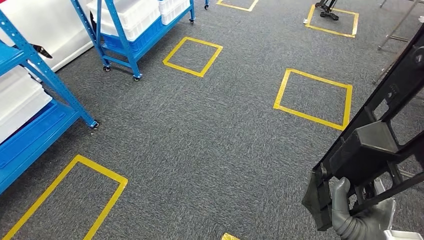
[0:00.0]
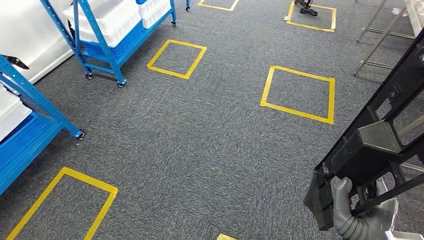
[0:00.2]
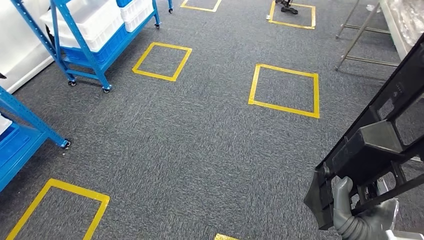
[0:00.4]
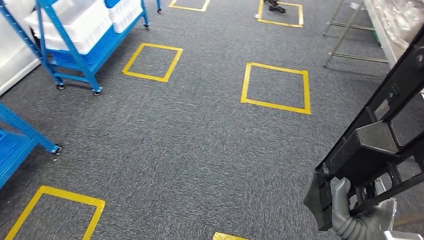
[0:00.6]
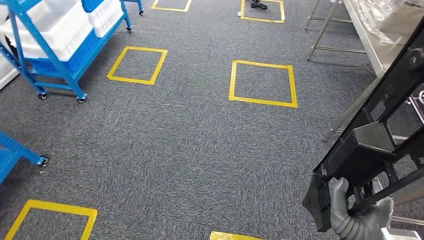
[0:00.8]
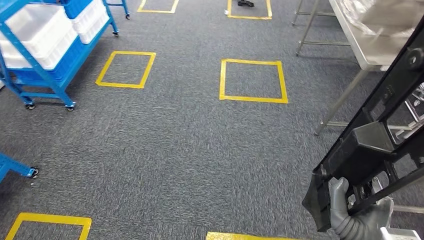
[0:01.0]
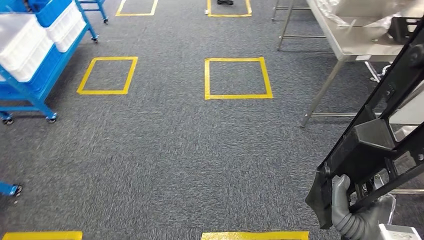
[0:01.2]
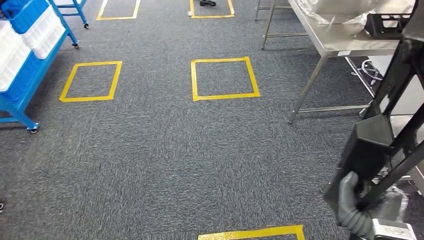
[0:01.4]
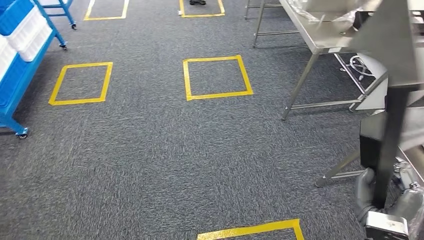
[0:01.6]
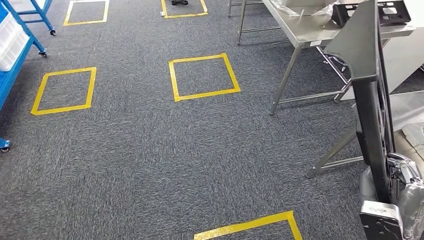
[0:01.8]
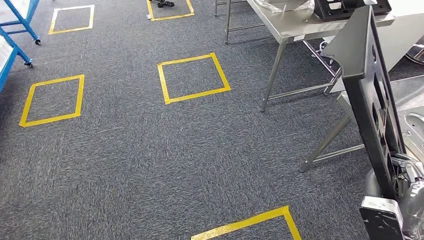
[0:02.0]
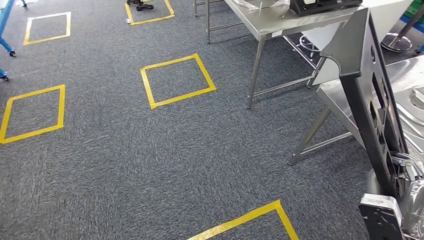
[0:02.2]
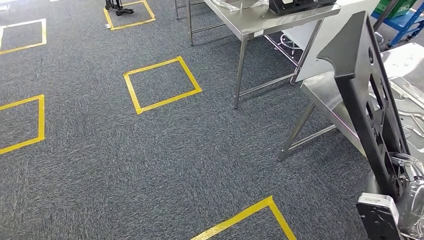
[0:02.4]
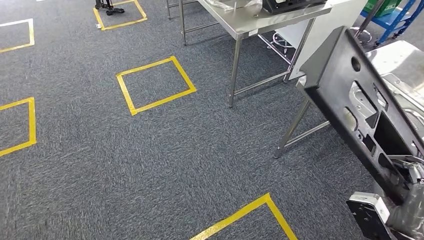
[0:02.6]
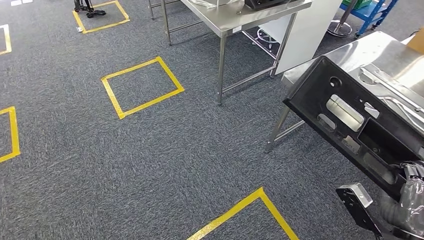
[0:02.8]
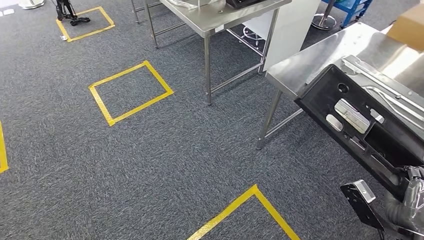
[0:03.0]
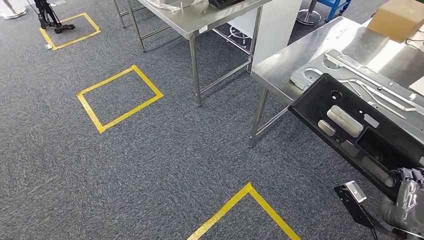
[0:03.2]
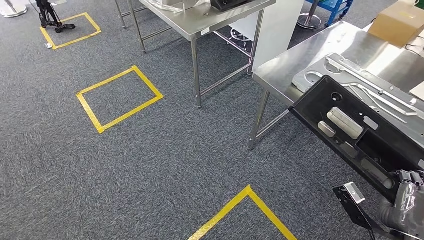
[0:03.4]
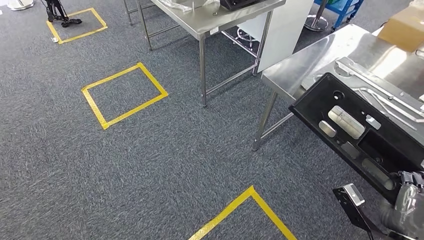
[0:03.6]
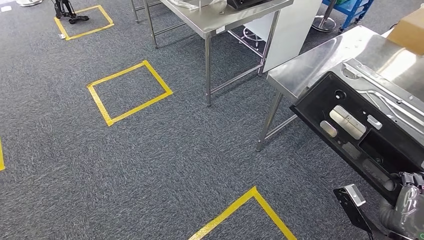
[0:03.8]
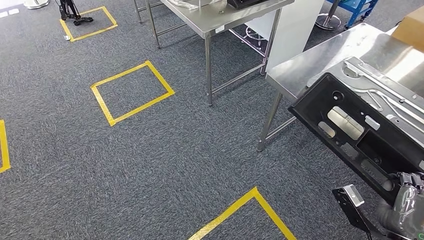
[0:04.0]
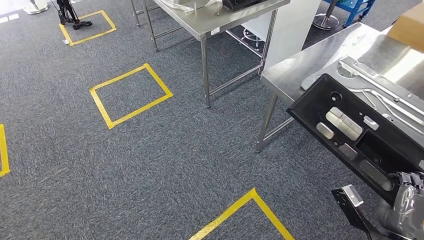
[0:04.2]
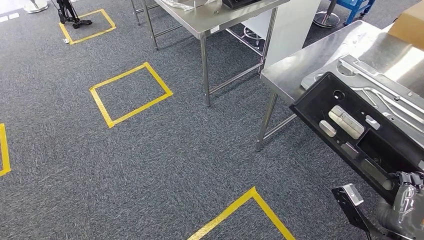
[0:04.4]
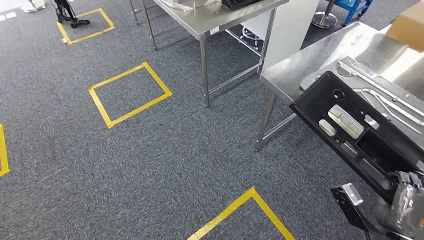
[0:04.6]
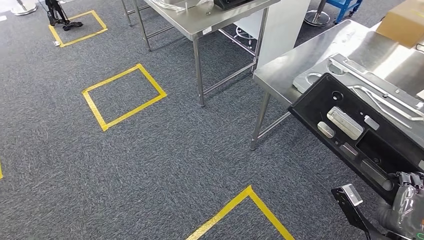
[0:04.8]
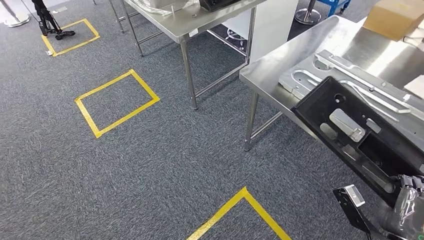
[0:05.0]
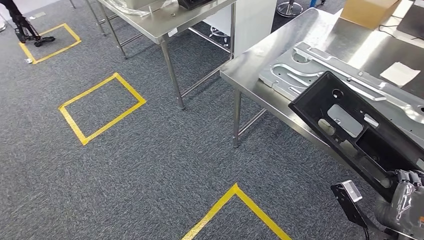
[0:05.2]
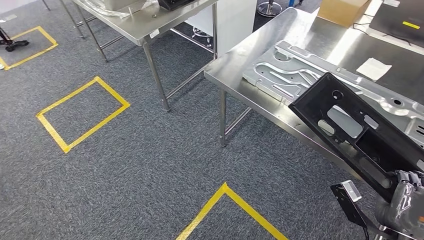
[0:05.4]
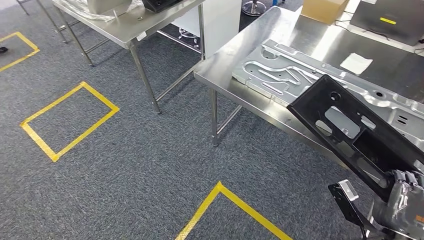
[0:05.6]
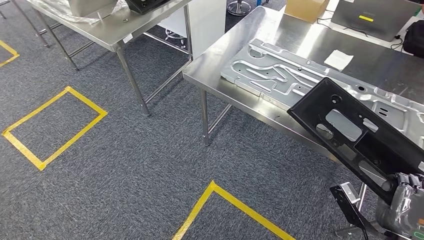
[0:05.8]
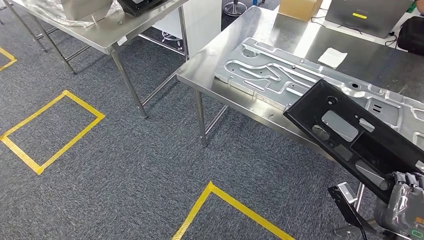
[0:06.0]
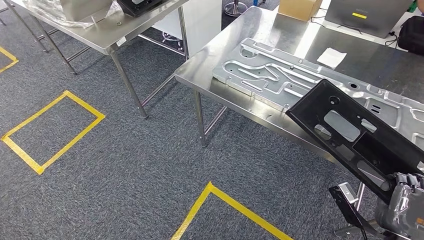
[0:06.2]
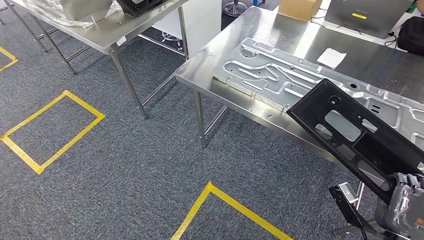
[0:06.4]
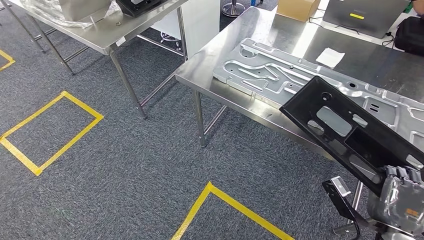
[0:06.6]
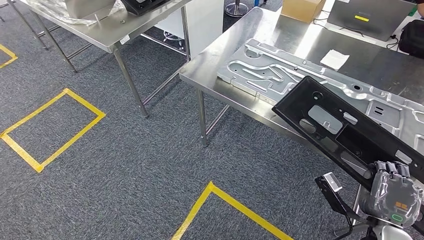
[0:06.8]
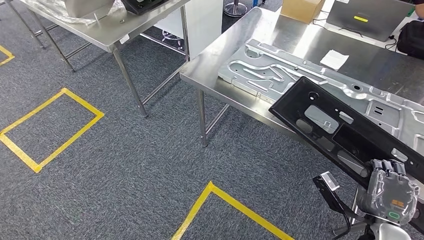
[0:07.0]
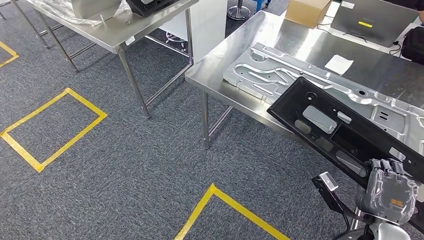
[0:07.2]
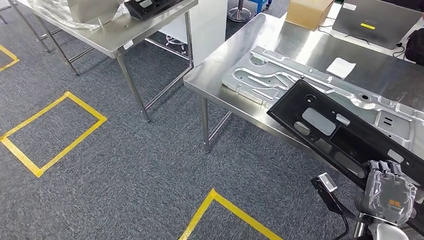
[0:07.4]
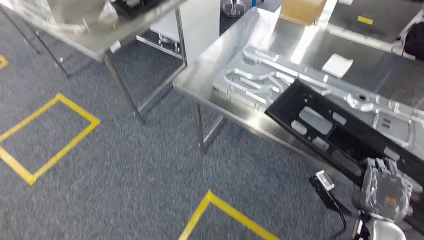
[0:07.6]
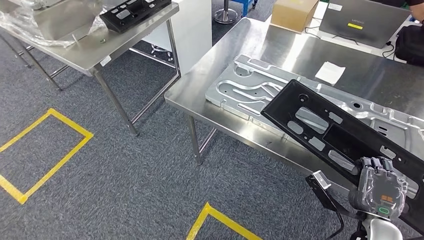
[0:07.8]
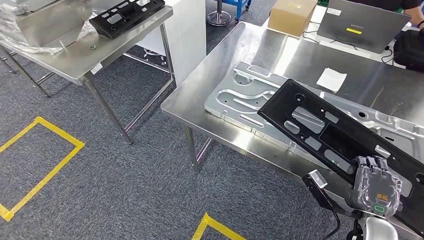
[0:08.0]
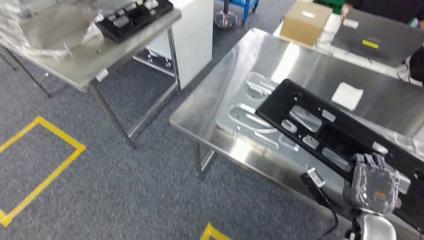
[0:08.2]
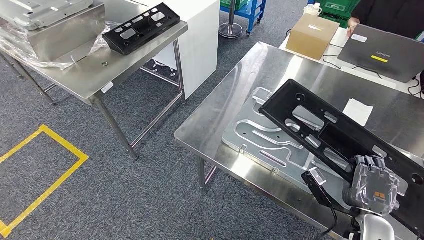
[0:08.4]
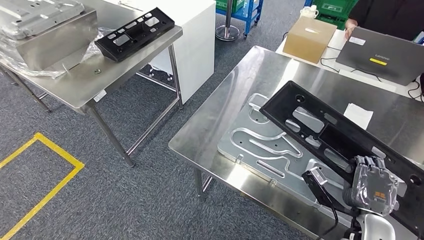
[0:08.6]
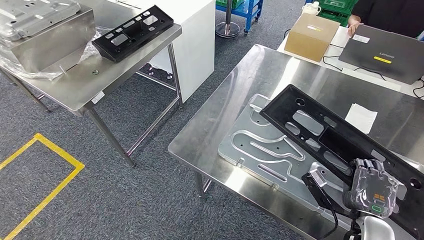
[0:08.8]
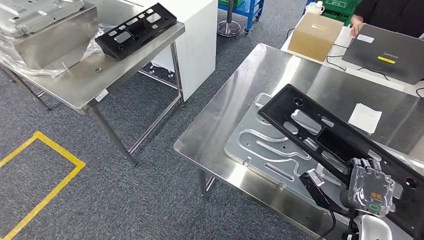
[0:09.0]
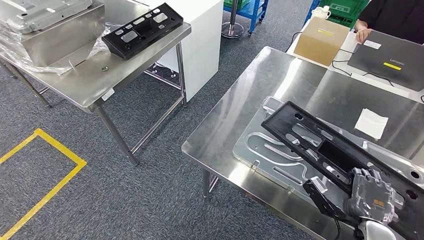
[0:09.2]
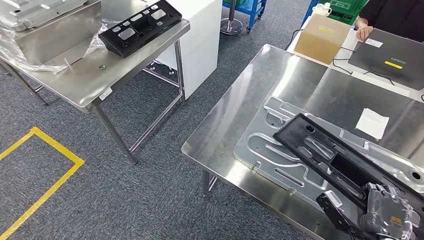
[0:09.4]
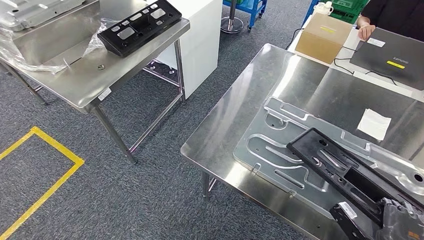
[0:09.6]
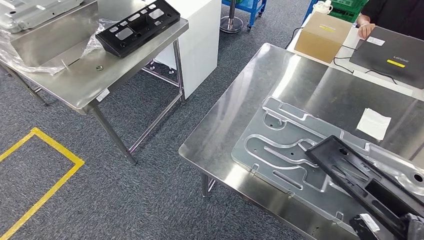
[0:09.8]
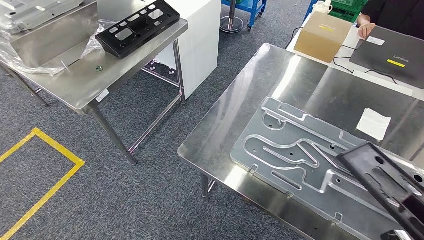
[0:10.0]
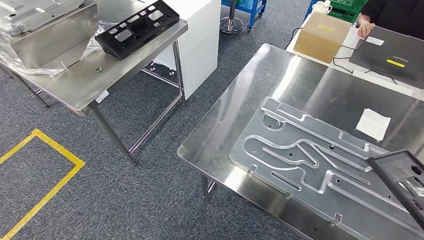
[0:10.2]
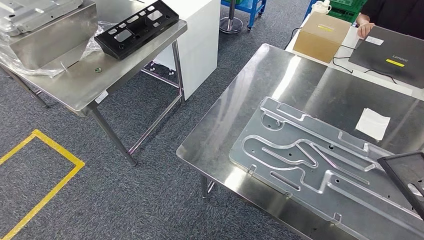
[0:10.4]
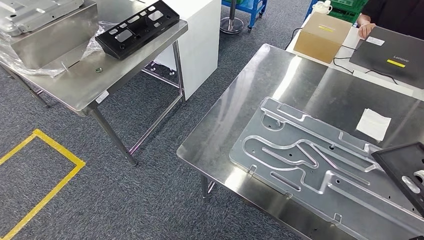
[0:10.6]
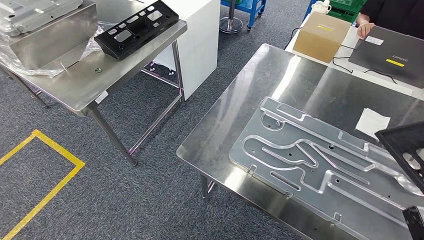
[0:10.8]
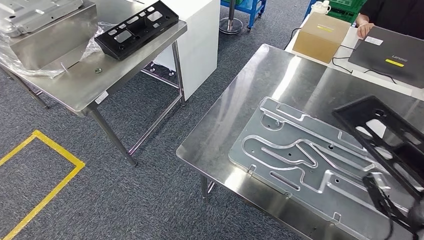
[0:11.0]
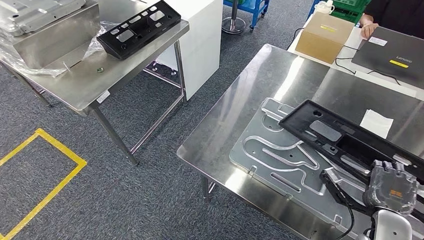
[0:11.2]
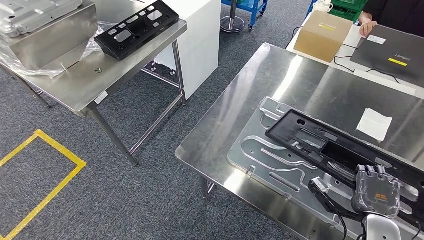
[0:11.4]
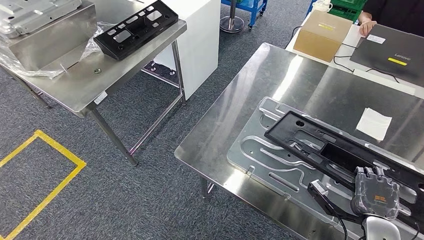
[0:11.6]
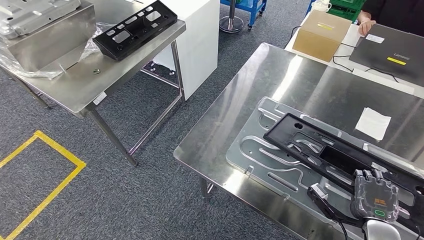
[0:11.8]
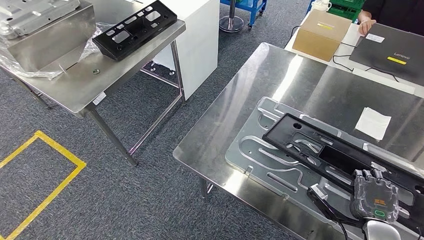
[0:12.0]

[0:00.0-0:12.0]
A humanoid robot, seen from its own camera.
Step, 0:00.0 to 0:08.0: Move the large parts to the workbench.
0:03.0 to 0:04.4: The hands make only small movements.

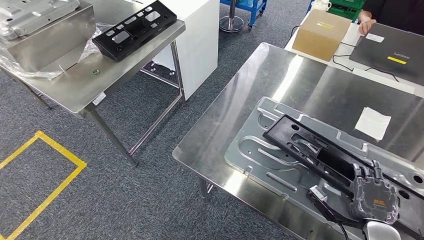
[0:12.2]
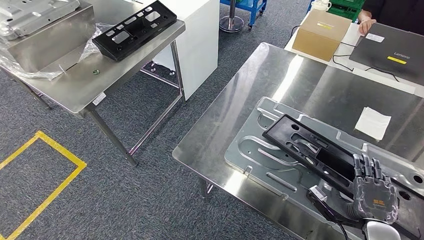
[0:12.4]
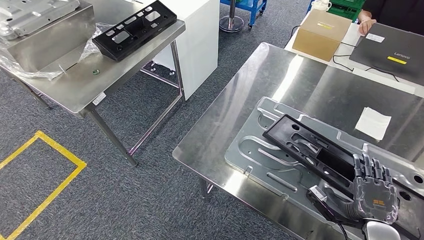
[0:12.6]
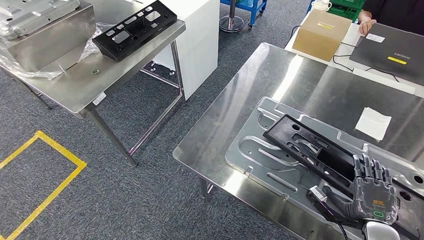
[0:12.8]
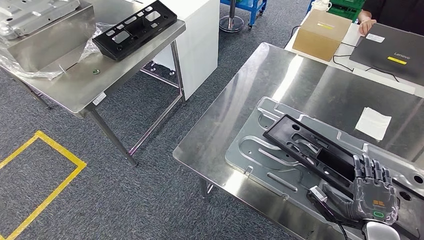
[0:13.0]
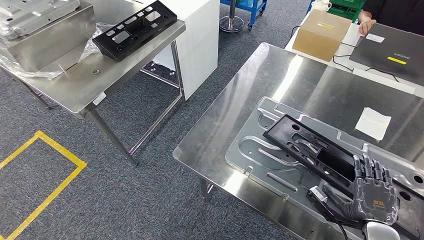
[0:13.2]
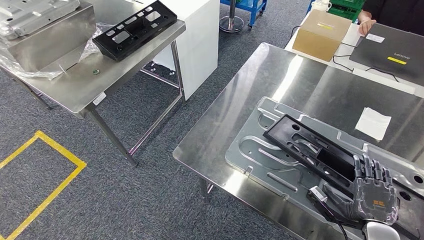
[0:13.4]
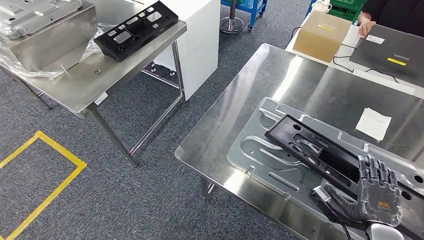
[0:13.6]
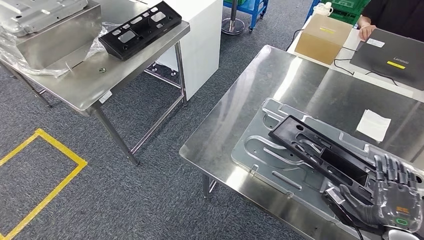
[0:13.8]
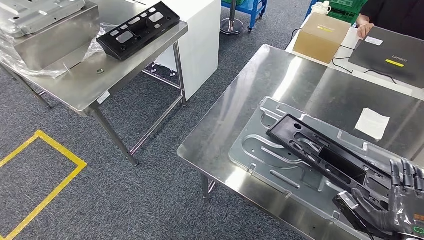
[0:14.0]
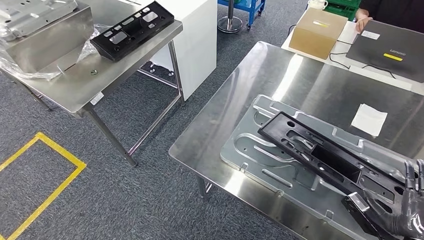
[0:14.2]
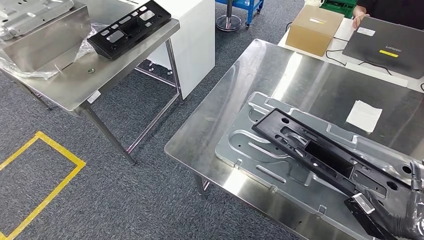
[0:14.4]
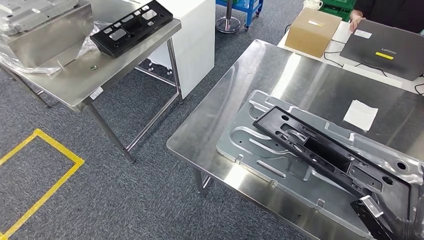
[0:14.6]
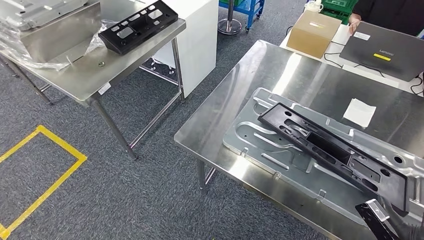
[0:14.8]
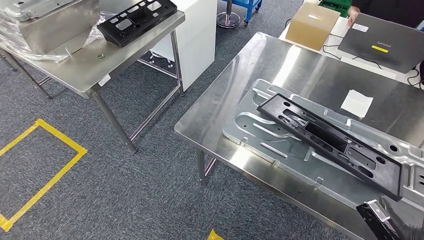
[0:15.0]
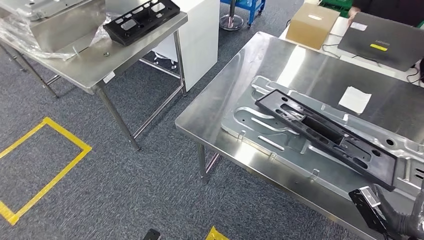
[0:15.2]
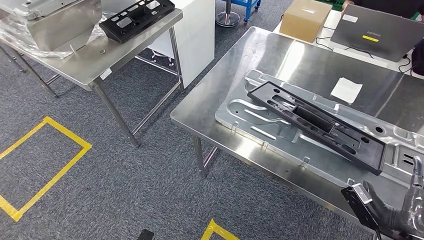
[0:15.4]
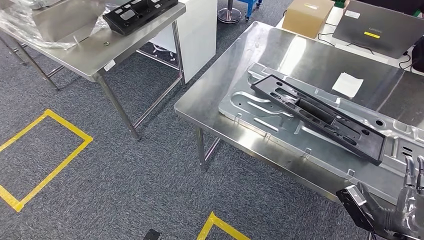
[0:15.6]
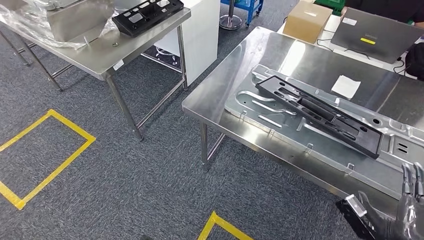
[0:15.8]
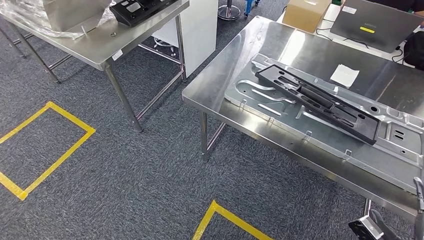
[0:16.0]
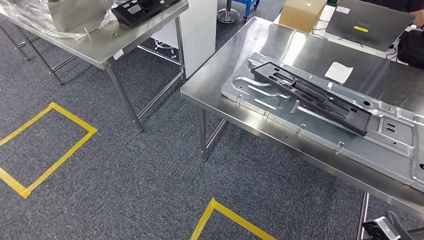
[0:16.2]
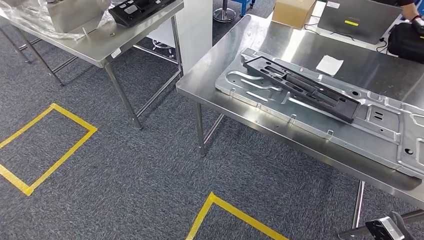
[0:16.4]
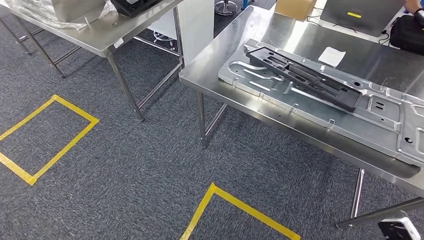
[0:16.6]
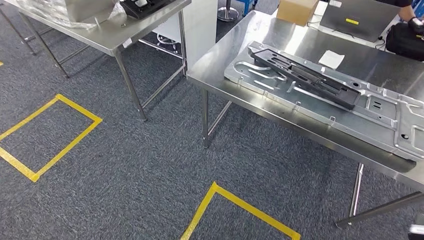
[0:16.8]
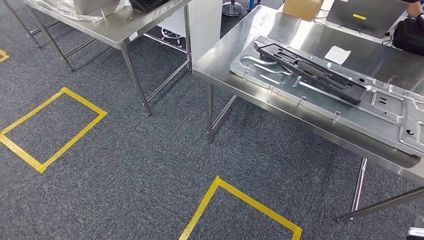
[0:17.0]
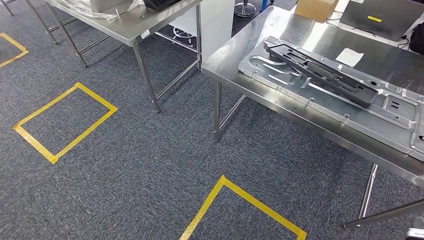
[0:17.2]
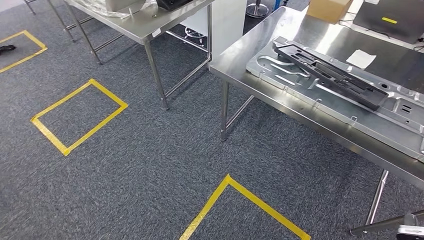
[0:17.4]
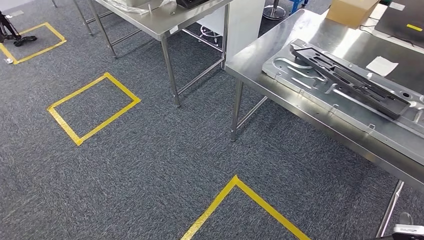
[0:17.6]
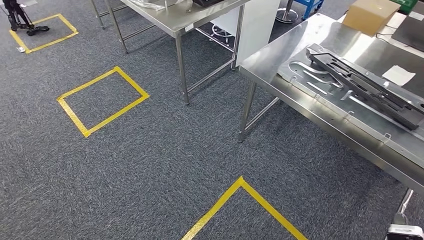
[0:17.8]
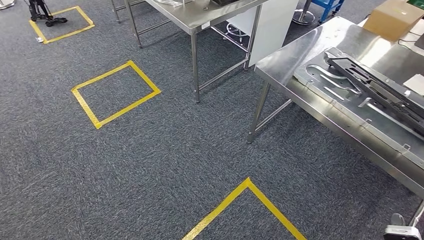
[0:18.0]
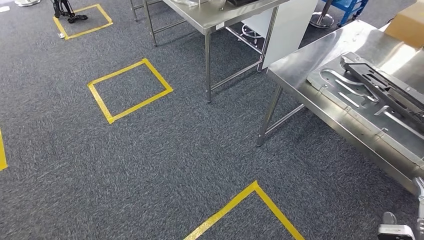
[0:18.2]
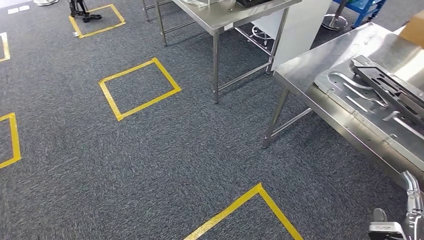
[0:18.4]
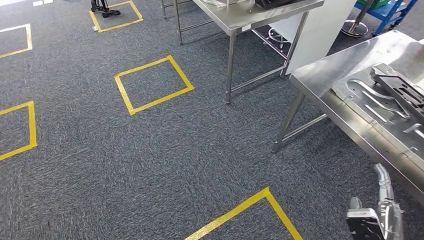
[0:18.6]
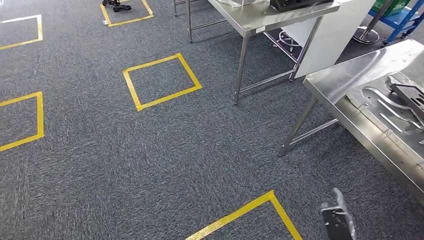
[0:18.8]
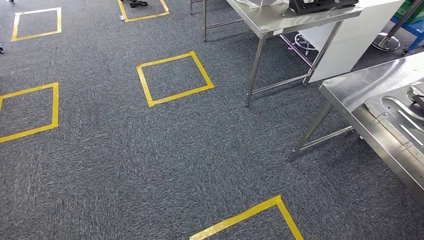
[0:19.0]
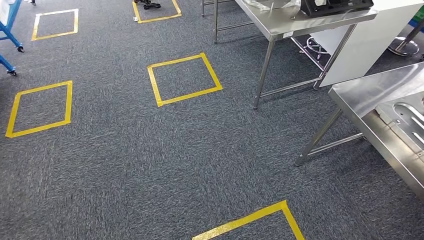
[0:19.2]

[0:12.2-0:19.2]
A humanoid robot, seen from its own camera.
Step, 0:12.2 to 0:17.0: Insert the large parts into the corresponding slots on the workbench.
0:12.2 to 0:13.6: Both hands stay put.
